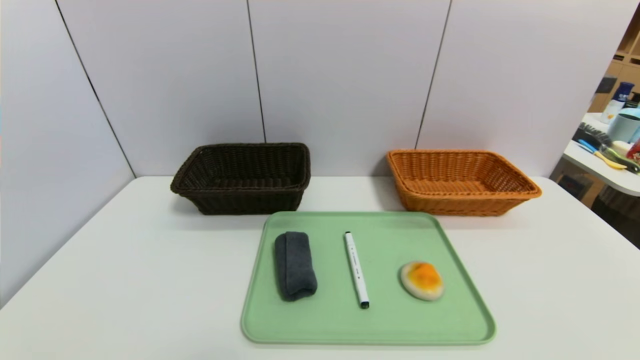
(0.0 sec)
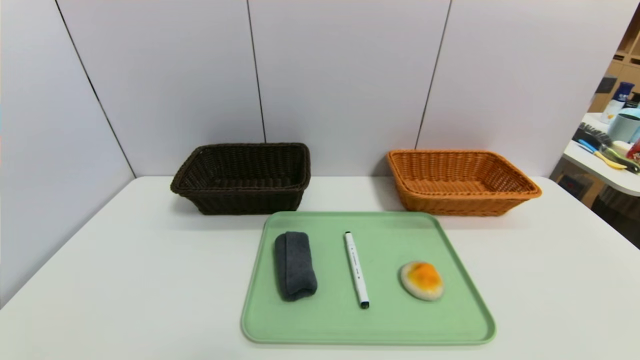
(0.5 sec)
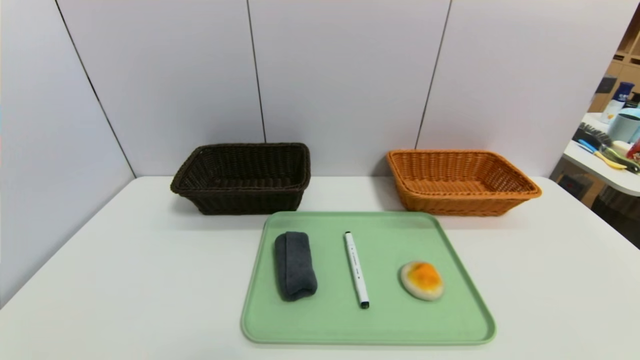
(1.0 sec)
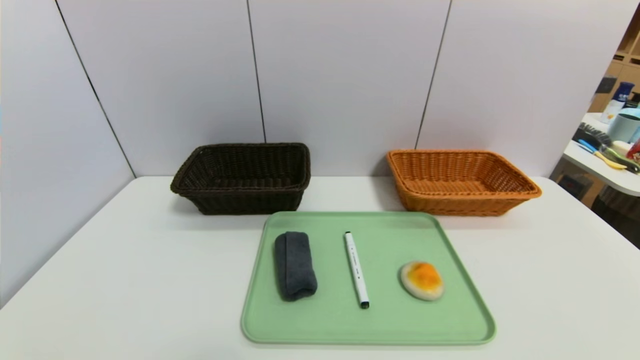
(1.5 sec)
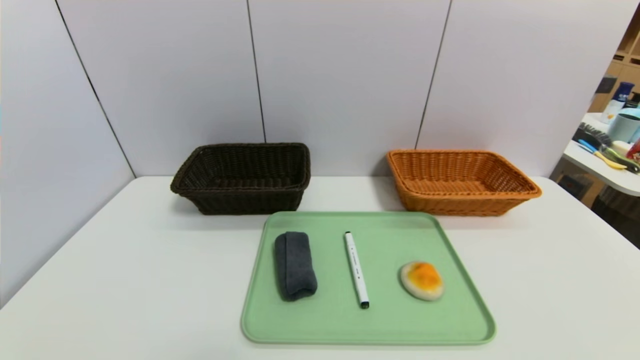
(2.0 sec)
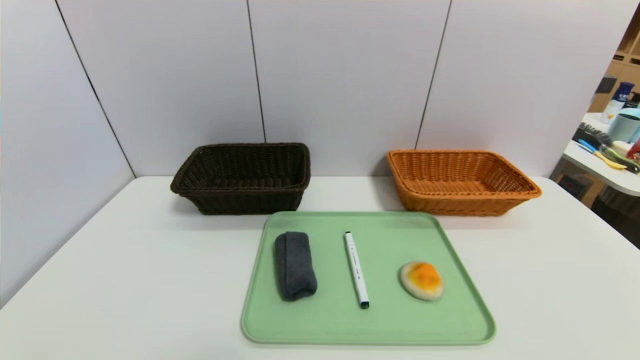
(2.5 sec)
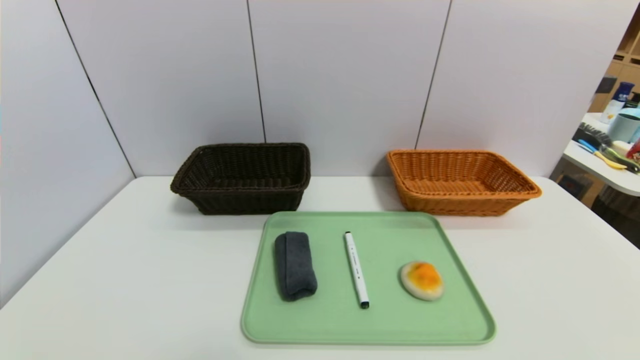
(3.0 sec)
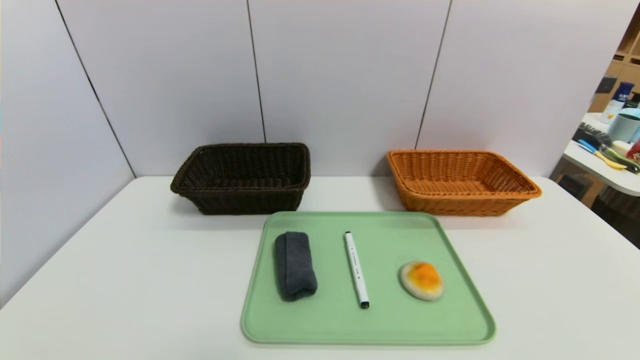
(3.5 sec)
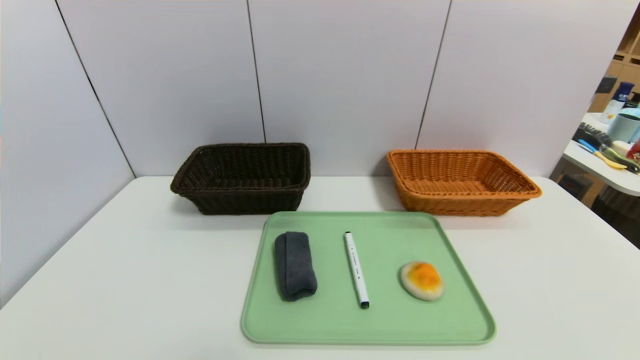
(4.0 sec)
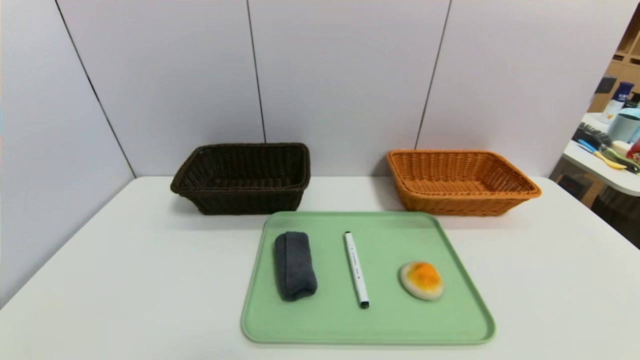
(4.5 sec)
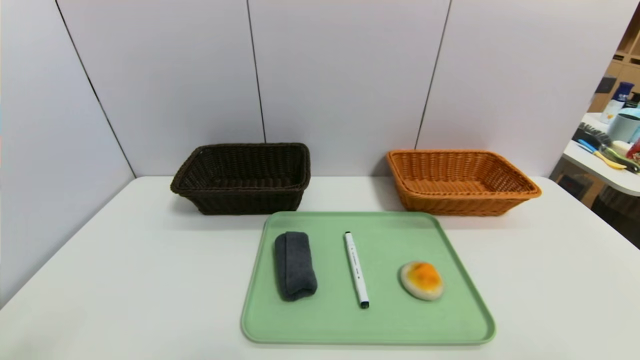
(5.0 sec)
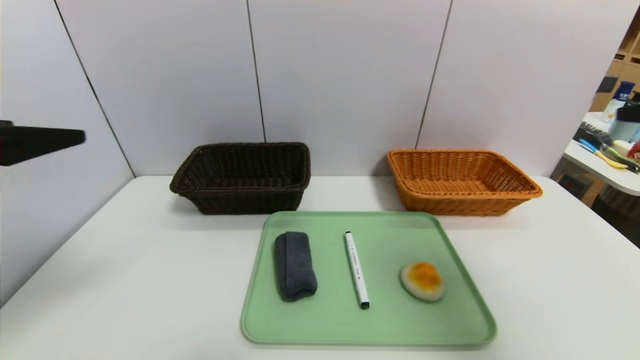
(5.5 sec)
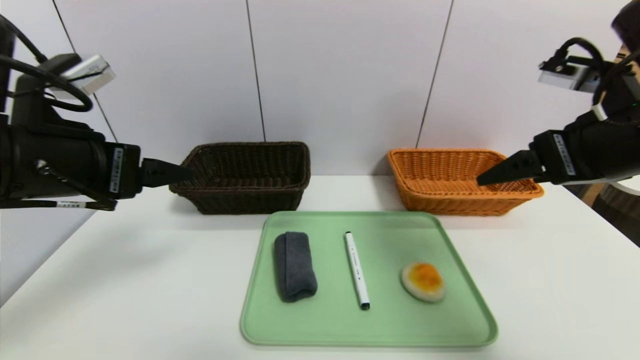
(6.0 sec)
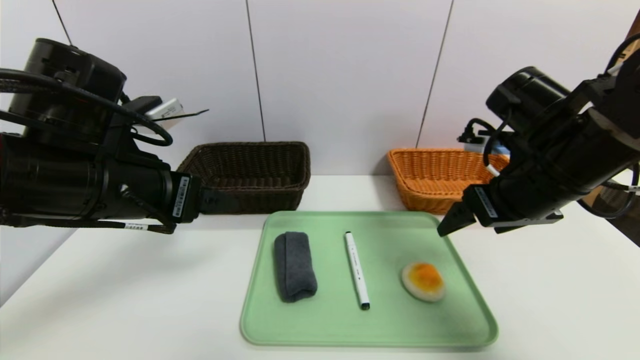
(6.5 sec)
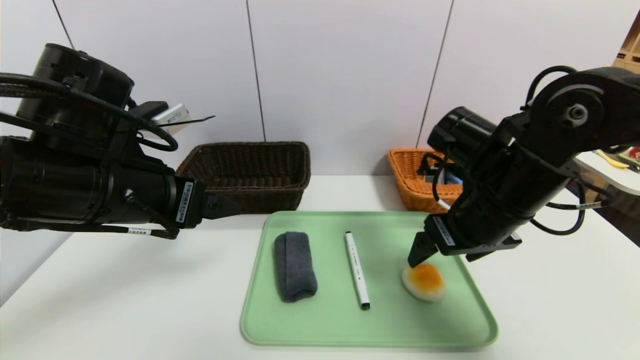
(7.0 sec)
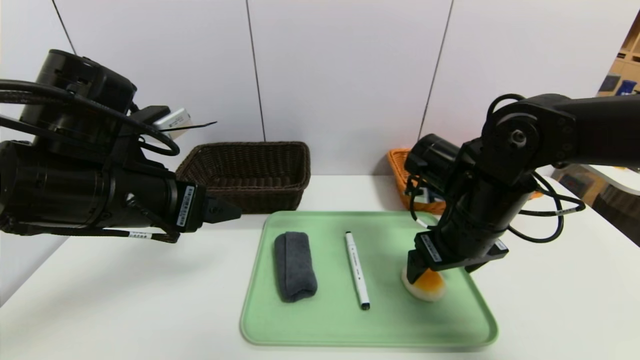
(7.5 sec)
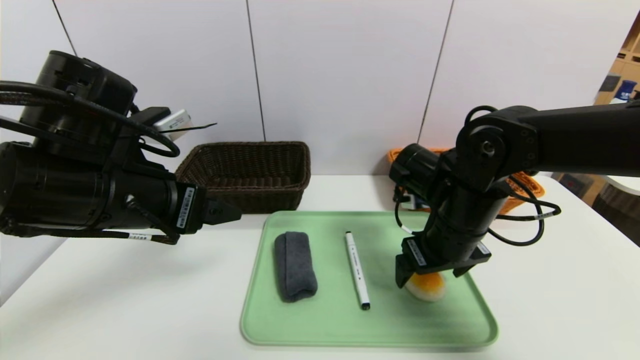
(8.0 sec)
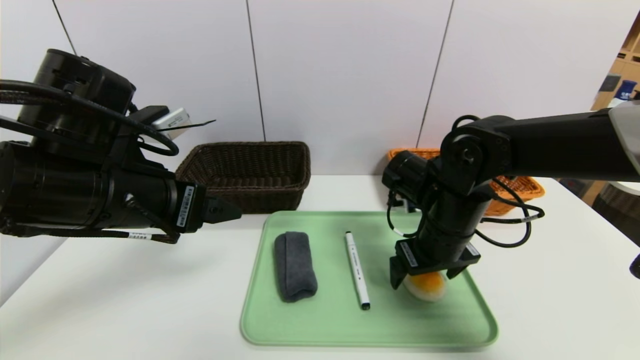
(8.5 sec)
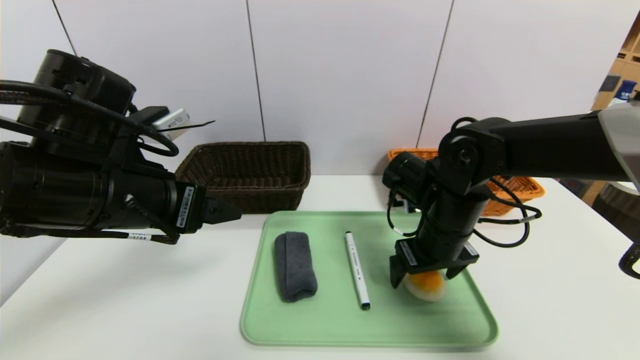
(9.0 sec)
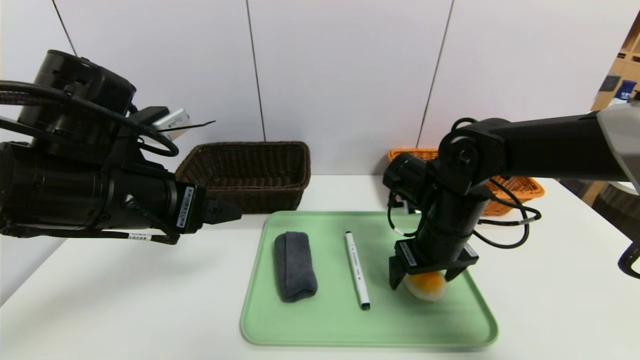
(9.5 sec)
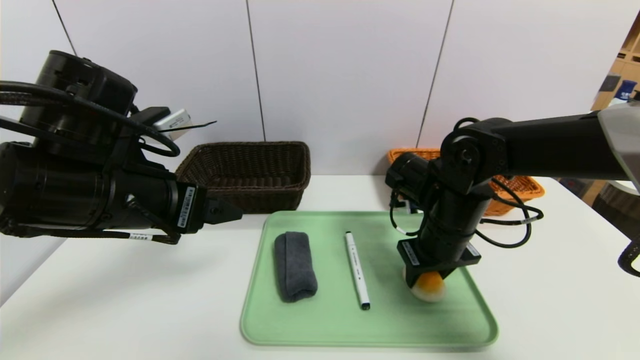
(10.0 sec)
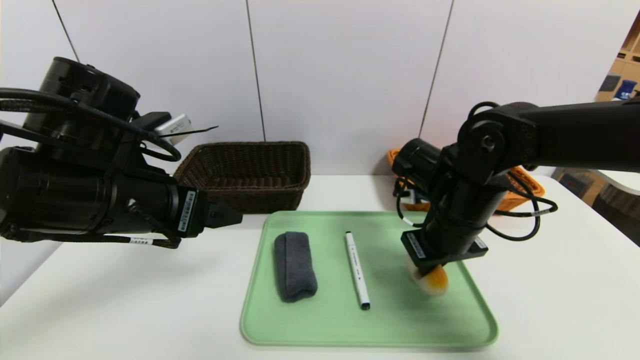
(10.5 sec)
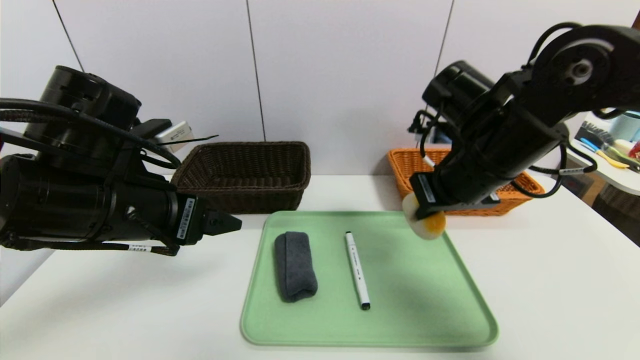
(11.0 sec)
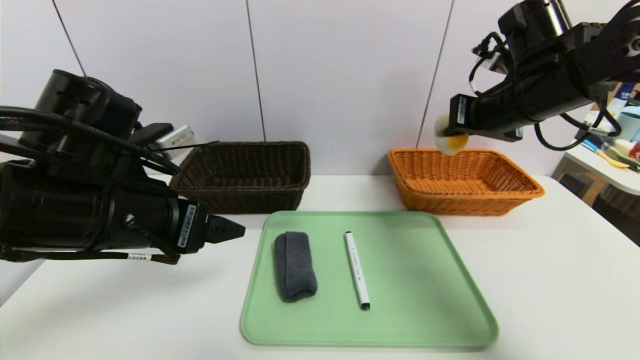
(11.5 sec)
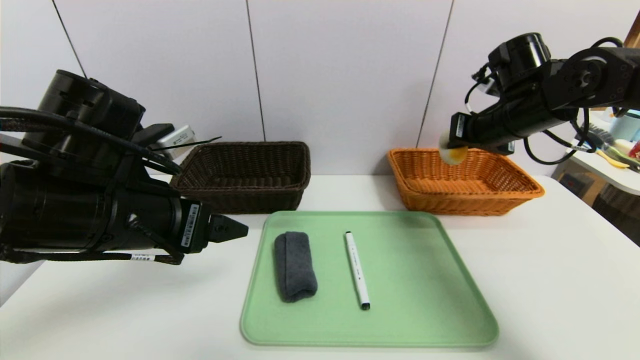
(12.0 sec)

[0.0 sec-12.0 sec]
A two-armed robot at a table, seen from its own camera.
Task of the whole recording: place the food in the right basket with the right gripper, and place the non food items in the left basket with the left gripper.
4.0 sec to 6.0 sec: The right gripper travels forward and upward by roughly 35 cm; the left gripper moves upward and forward, some 30 cm.
6.0 sec to 8.0 sec: The right gripper shifts approximately 20 cm downward, to the left and forward; the left gripper shifts by approximately 5 cm.
8.0 sec to 10.0 sec: The right gripper closes up.
10.0 sec to 12.0 sec: The right gripper heads to the right, upward and forward, covering about 20 cm, and closes up.

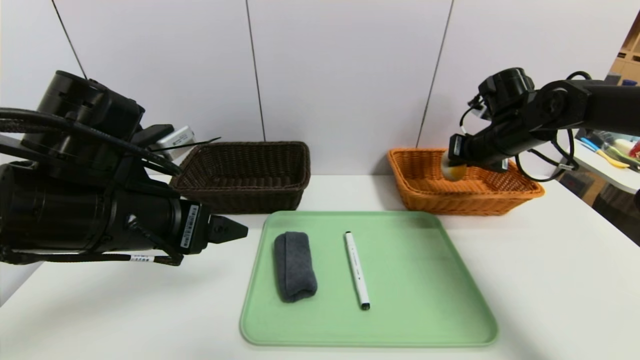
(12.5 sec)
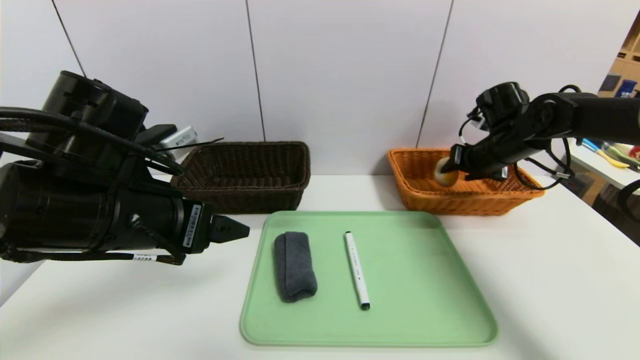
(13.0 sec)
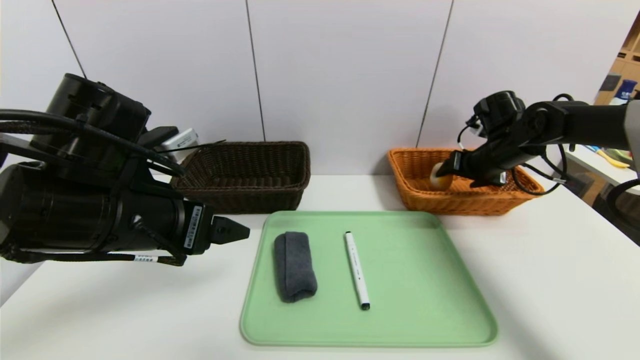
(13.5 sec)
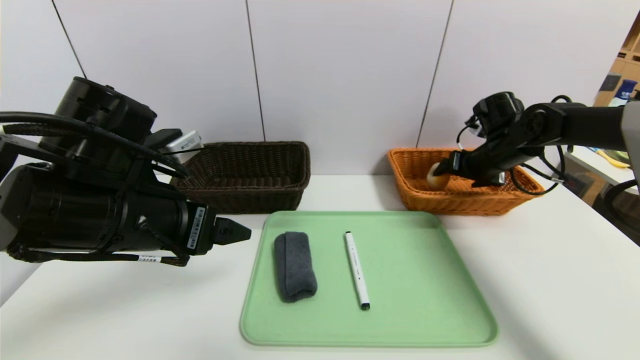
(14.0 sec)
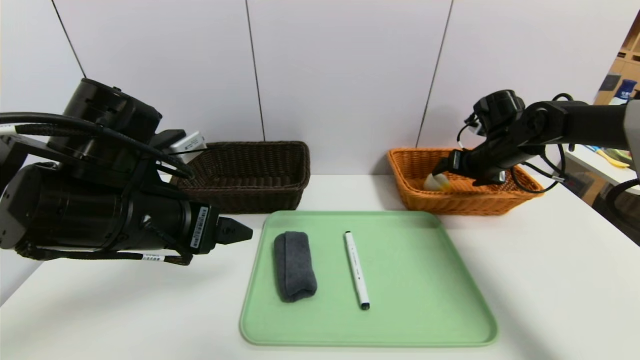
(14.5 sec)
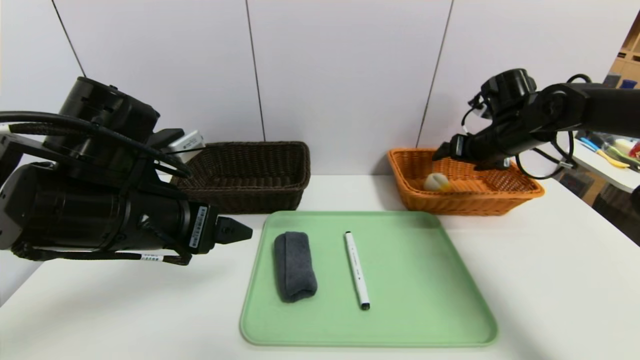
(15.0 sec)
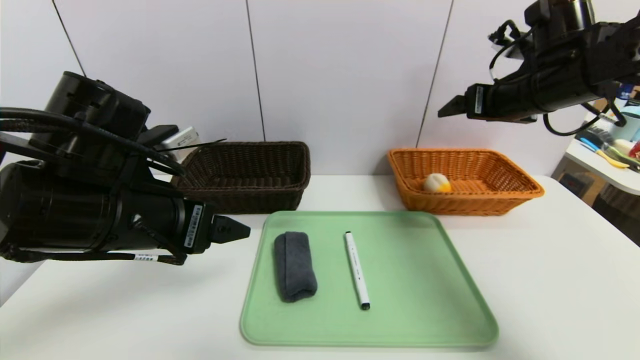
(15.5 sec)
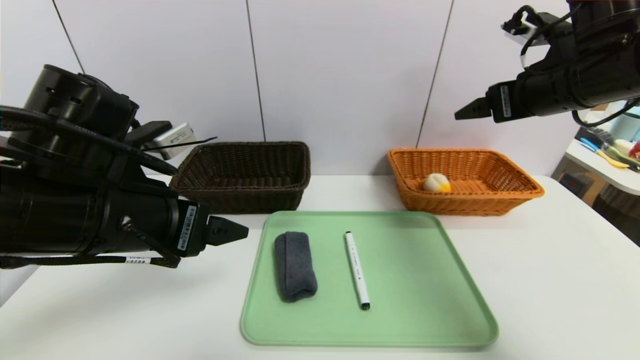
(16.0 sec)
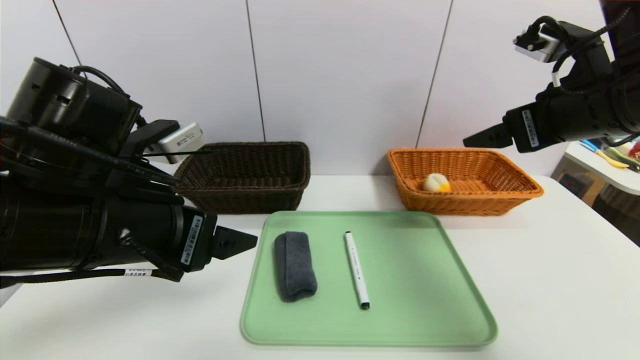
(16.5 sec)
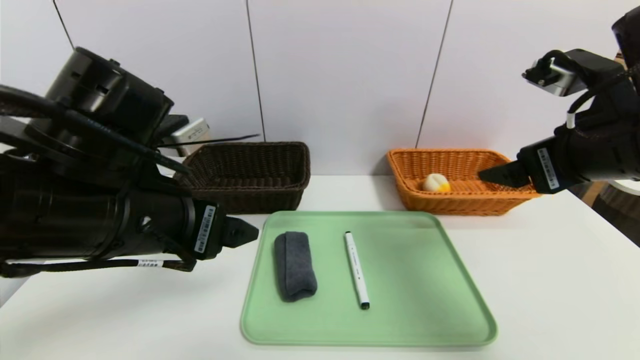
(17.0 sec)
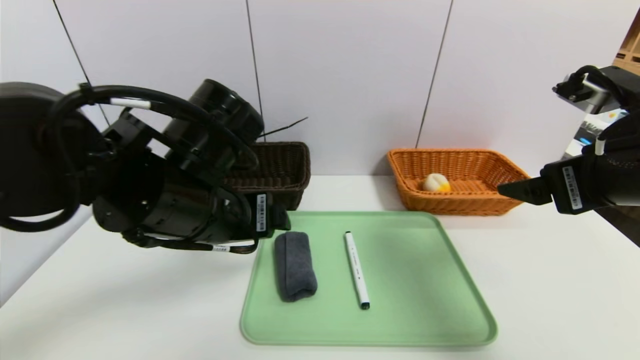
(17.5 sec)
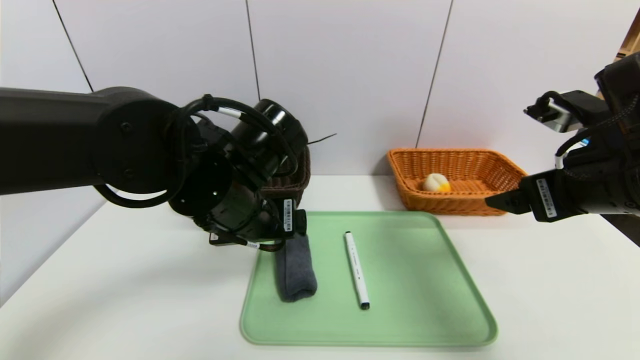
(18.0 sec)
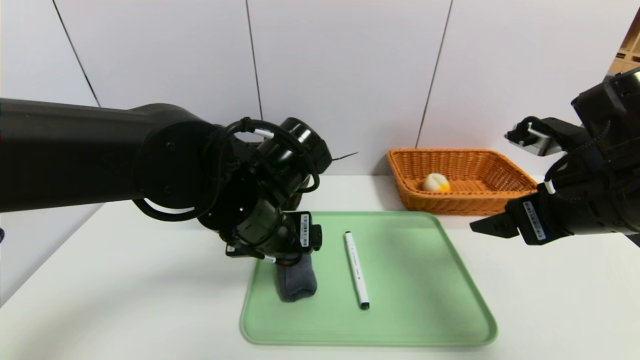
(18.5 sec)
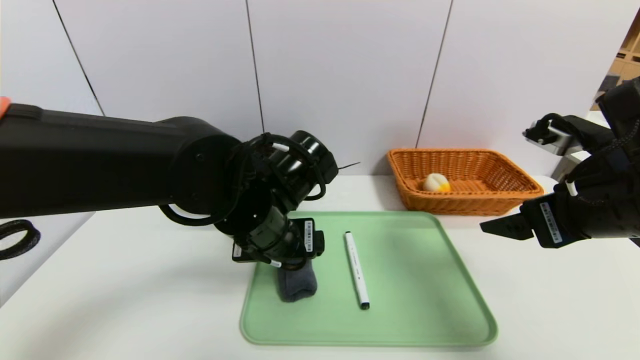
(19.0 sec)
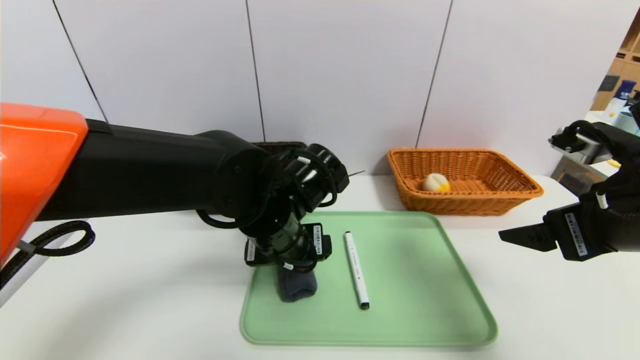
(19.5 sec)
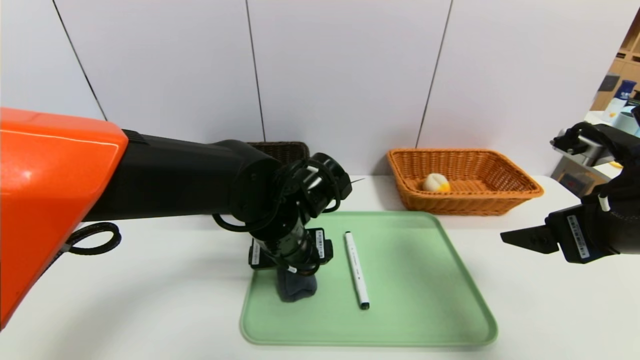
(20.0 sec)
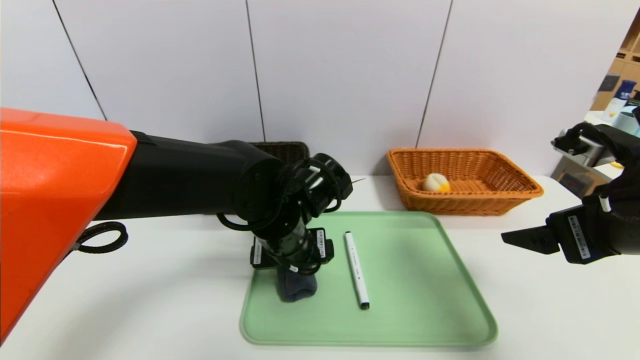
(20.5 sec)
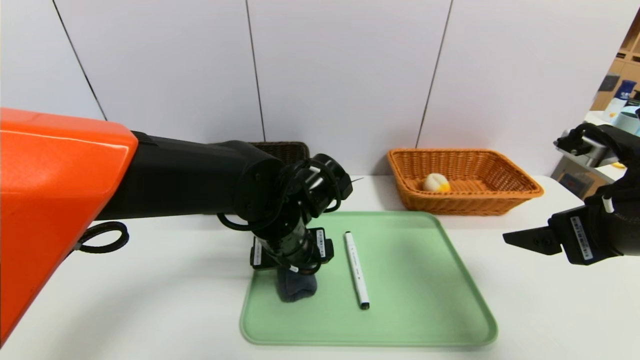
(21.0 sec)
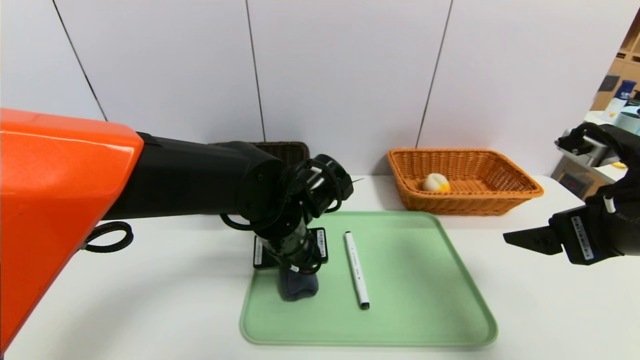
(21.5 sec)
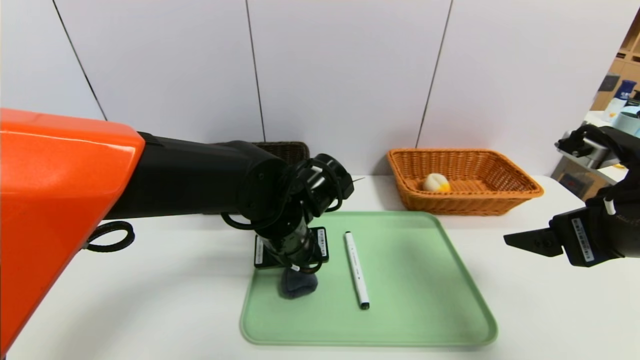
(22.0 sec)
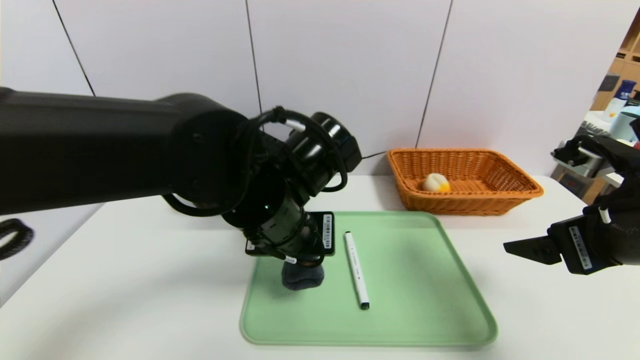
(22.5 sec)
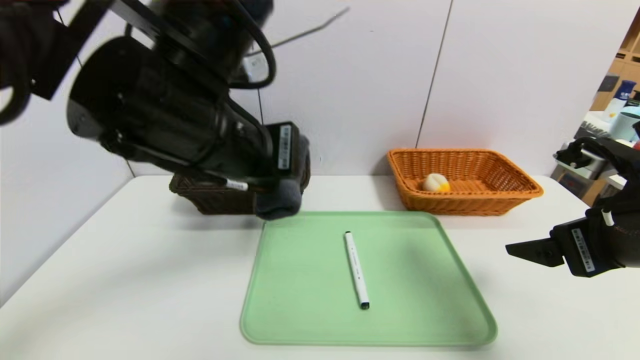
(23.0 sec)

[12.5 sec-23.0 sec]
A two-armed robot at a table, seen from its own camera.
Task of the whole recording: place the food in the right basket with the right gripper, and place the non food items in the left basket with the left gripper.
Step, 12.5 sec to 15.0 sec: Grasp the egg yolk pastry and put it in the right basket.
12.5 sec to 14.5 sec: The right gripper opens its fingers.
14.5 sec to 16.5 sec: The right gripper shifts about 25 cm backward and upward.
16.5 sec to 19.0 sec: The left gripper shifts about 15 cm to the right, forward and downward. Meanwhile the right gripper travels downward and backward by roughly 10 cm.
21.0 sec to 23.0 sec: The left gripper heads upward, covering roughly 15 cm, and closes up.
